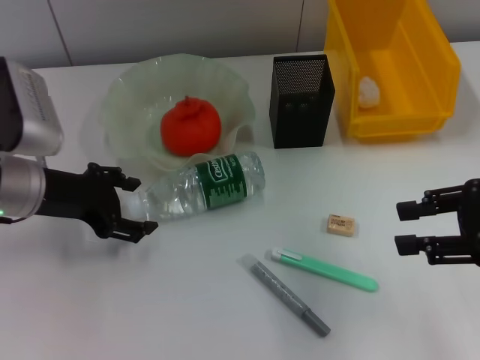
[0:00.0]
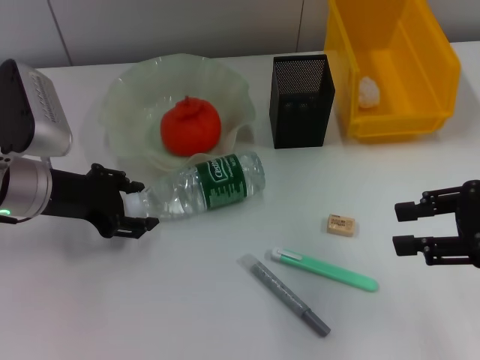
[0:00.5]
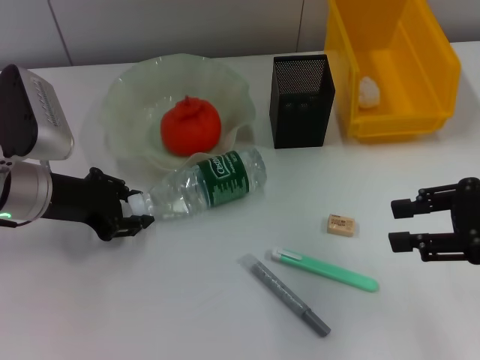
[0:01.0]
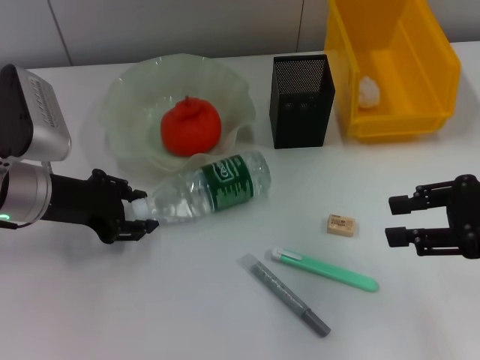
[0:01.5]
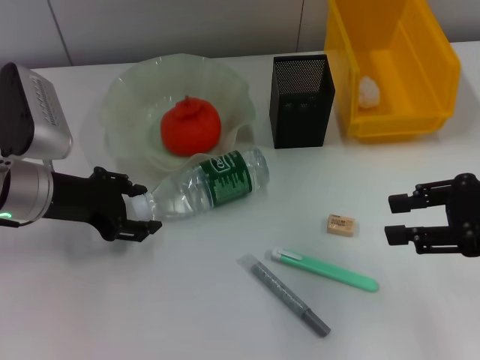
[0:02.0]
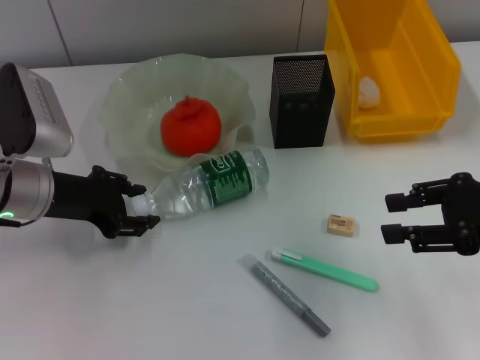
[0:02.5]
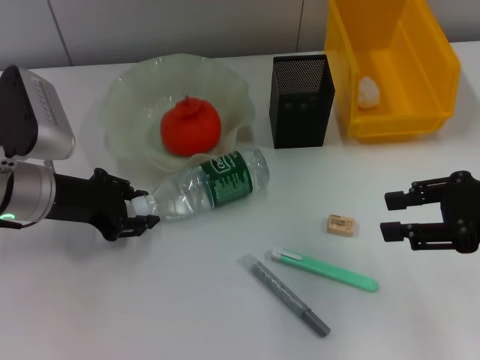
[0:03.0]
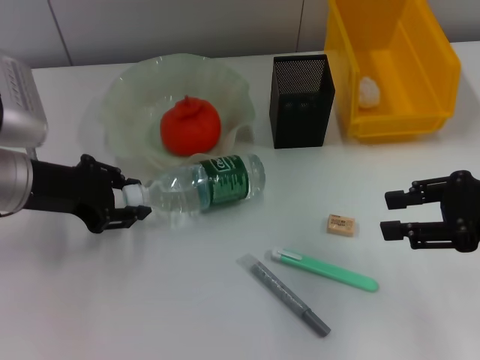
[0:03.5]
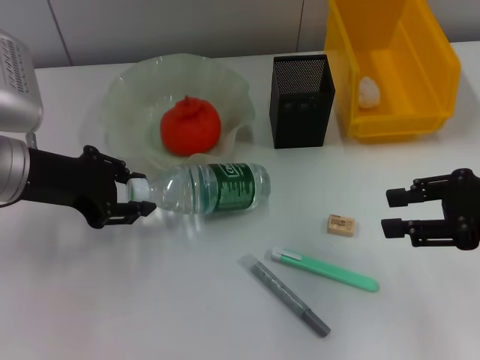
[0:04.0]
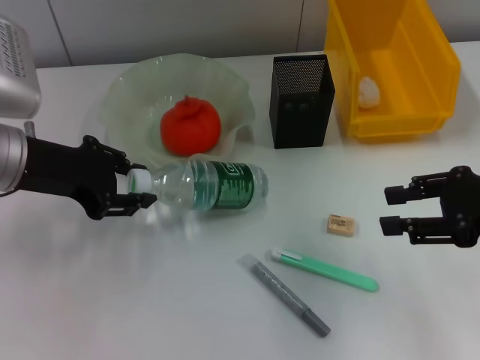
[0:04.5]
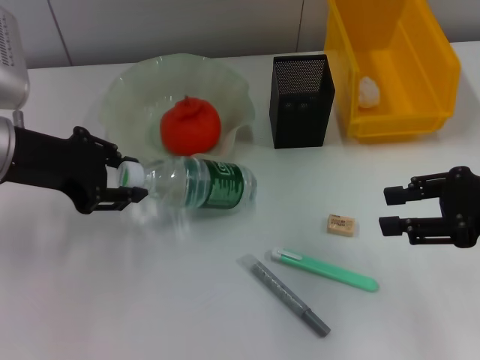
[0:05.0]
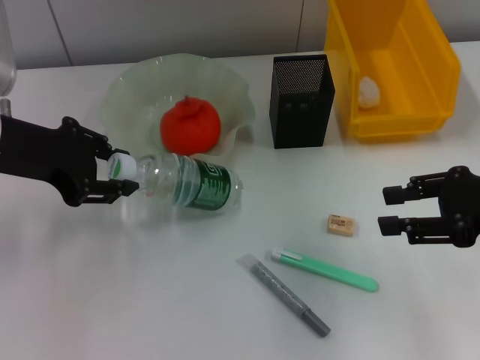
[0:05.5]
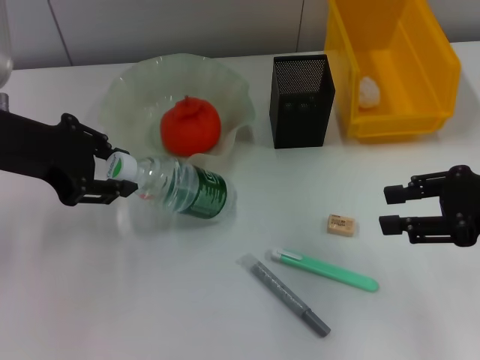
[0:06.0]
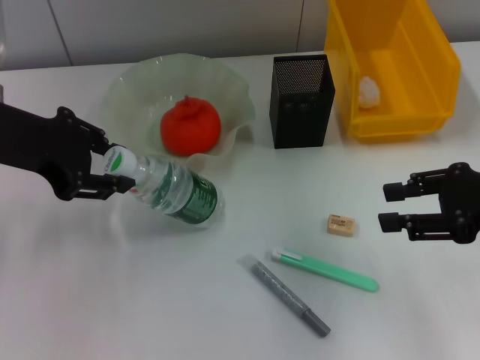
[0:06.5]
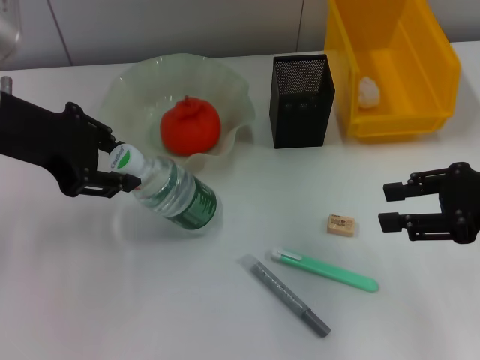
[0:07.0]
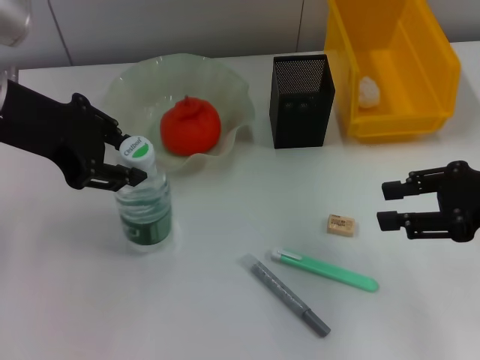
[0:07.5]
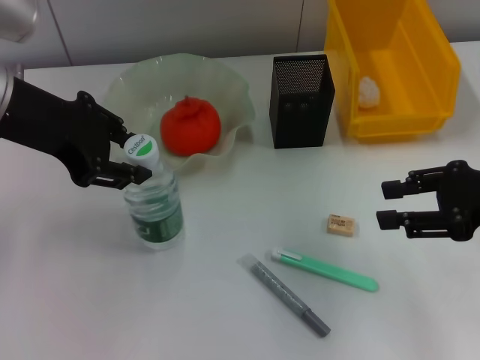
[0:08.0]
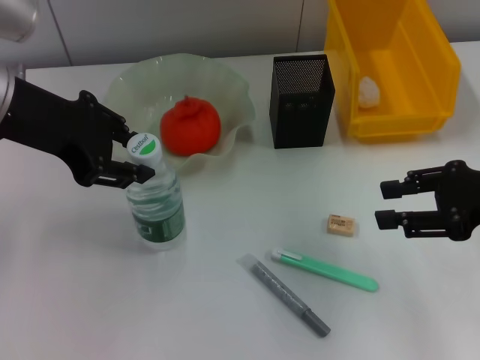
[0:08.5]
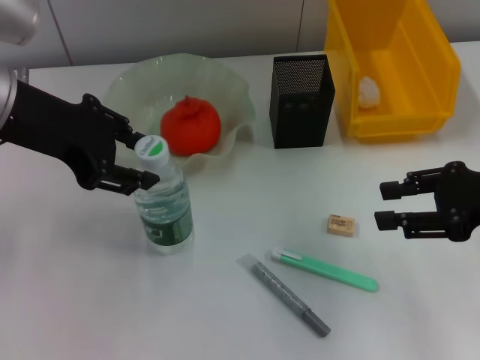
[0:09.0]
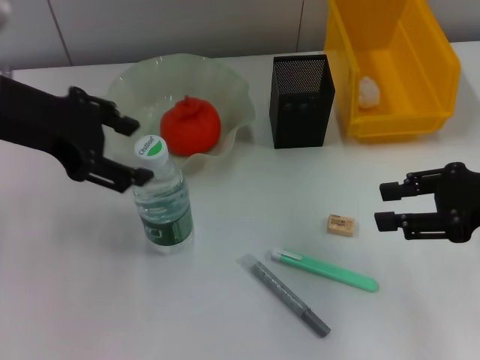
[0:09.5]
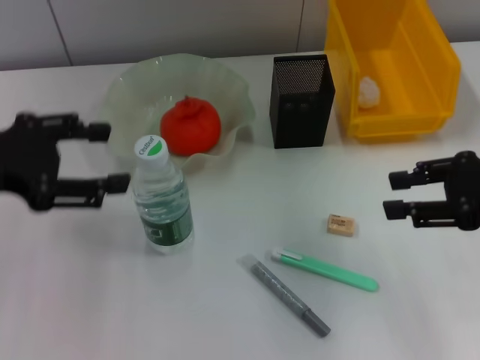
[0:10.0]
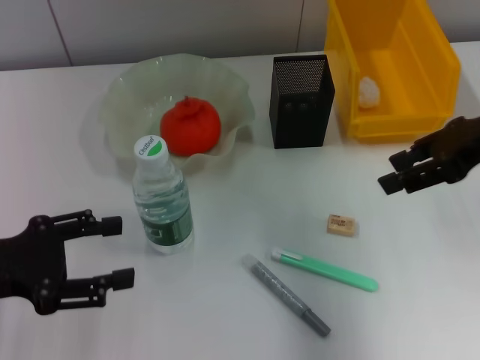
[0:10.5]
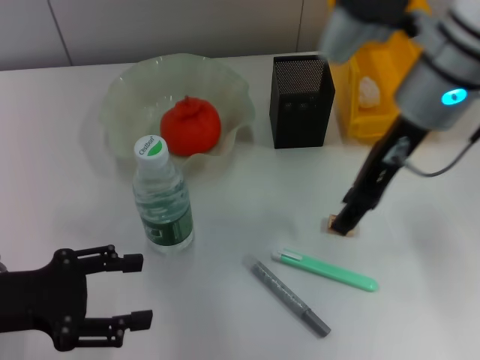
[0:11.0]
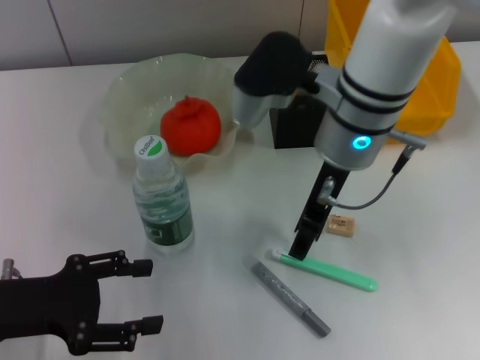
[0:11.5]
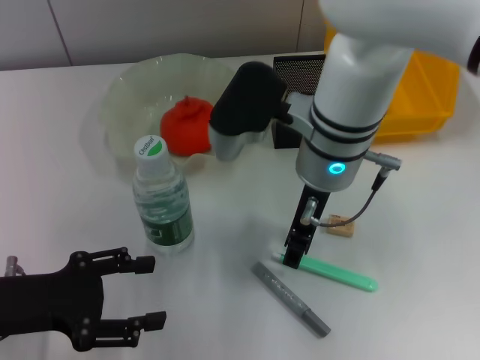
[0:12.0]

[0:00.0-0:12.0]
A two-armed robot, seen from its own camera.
Step, 0:00.0 to 0:03.0: Grab the water bottle with the left hand.
Step, 0:03.5 to 0:09.0: Place the water bottle on the table with the left hand.
0:00.0 to 0:02.0: Neither gripper changes place.
0:02.0 to 0:04.0: The grippers make only small movements.
0:04.0 to 0:06.0: The left gripper shifts roughly 5 cm upward.
0:06.0 to 0:08.0: The grippers move only a little.
0:08.0 to 0:10.0: The left gripper heads to the left and downward, covering roughly 10 cm, and opens.
0:10.0 to 0:12.0: The left gripper goes roughly 10 cm downward and backward. Meanwhile the right gripper heads to the left, covering some 25 cm.

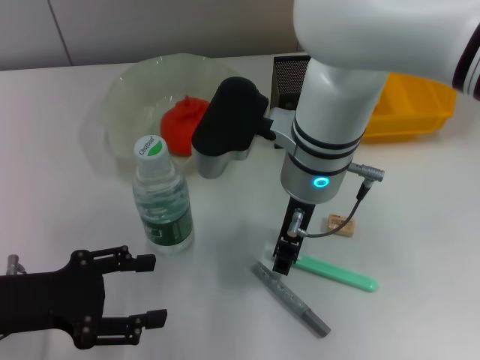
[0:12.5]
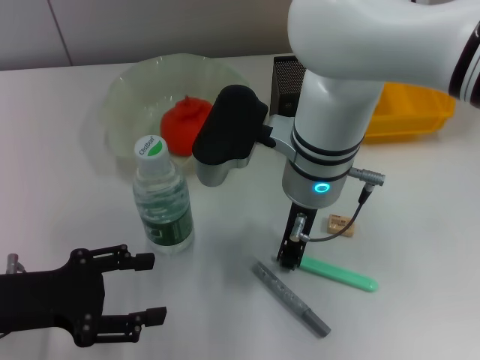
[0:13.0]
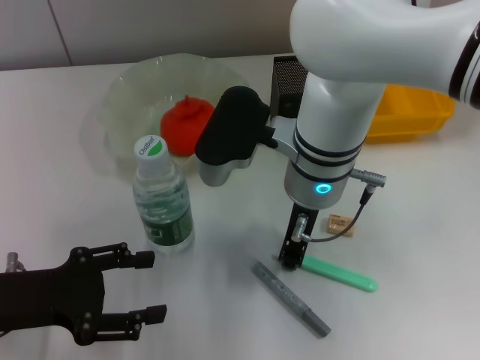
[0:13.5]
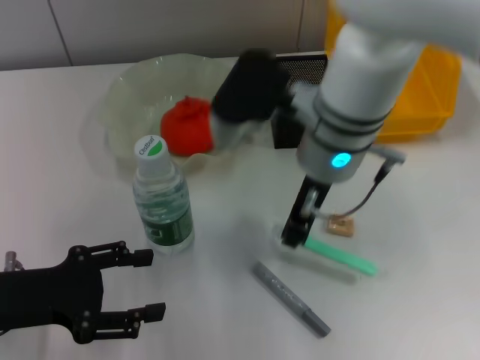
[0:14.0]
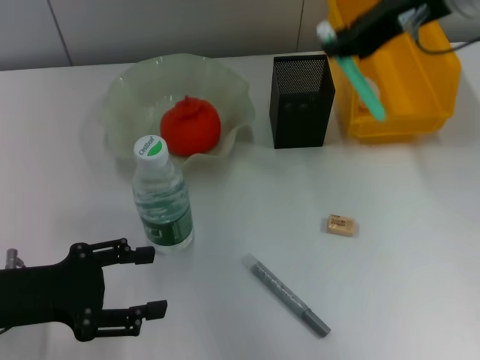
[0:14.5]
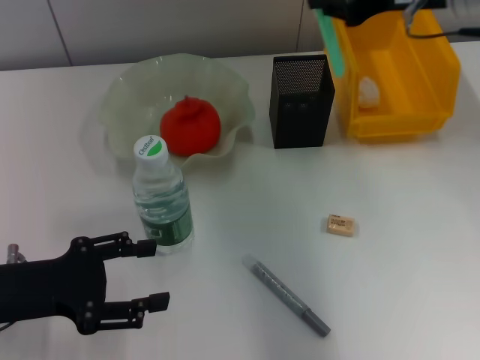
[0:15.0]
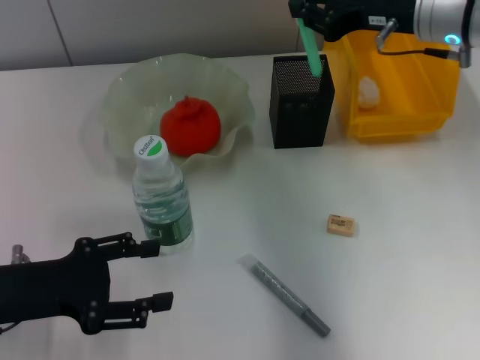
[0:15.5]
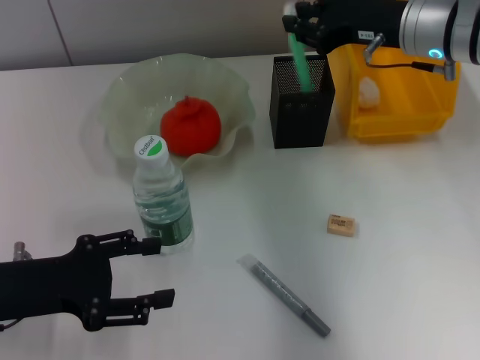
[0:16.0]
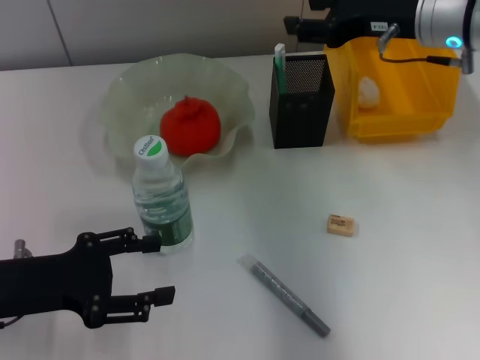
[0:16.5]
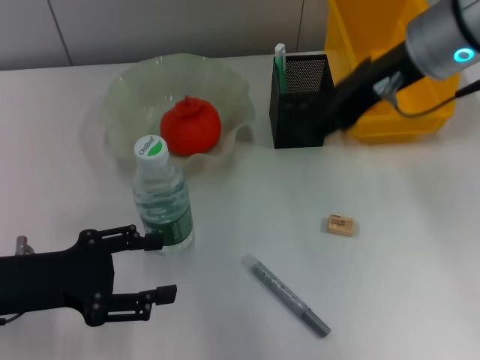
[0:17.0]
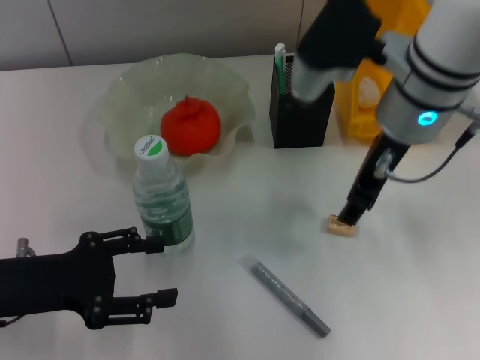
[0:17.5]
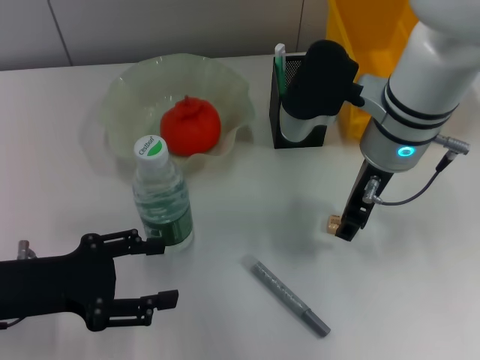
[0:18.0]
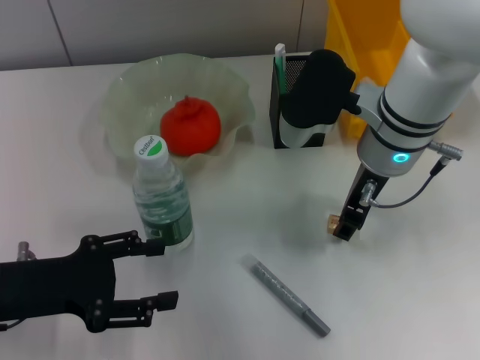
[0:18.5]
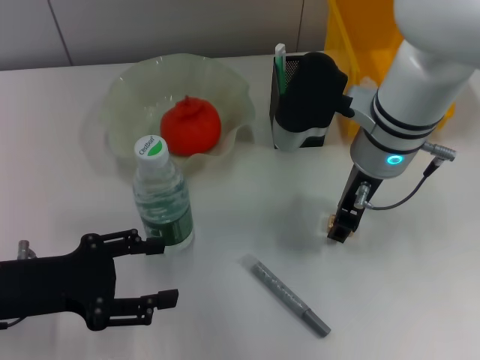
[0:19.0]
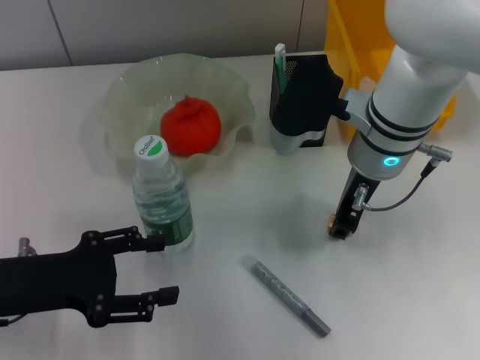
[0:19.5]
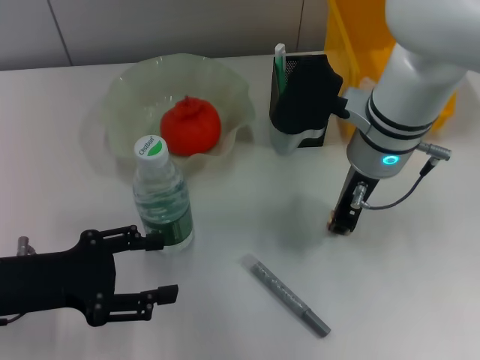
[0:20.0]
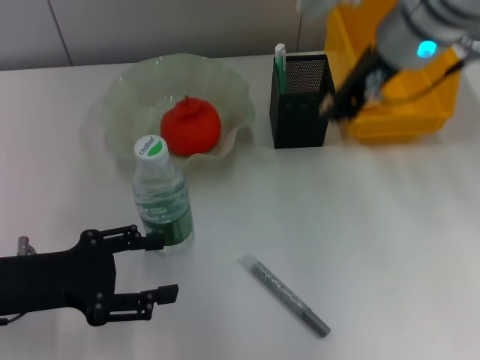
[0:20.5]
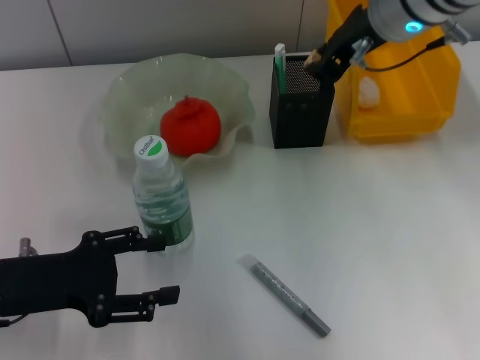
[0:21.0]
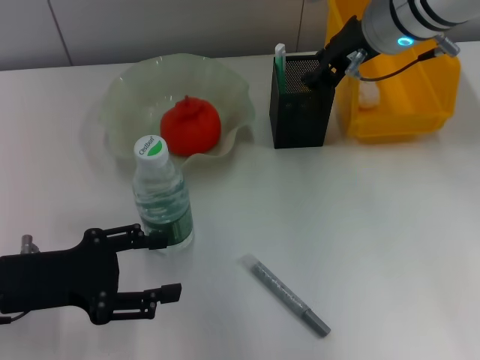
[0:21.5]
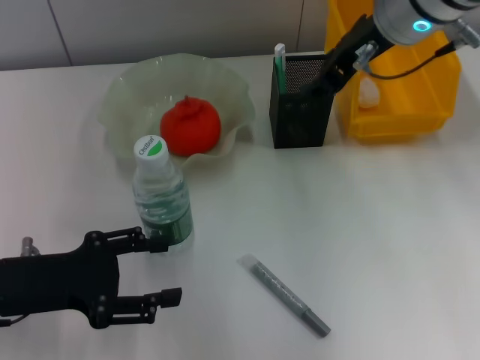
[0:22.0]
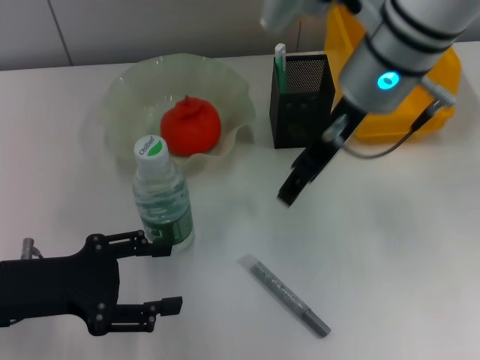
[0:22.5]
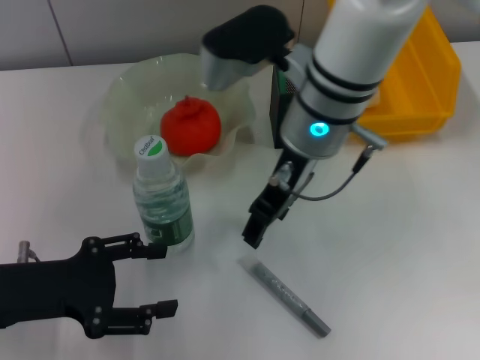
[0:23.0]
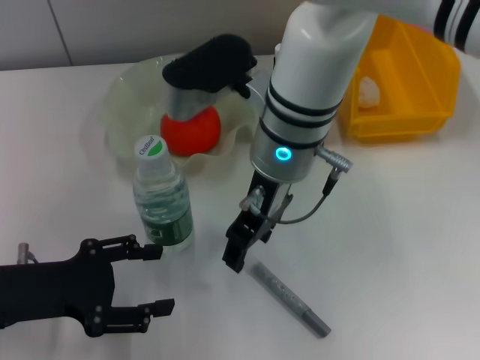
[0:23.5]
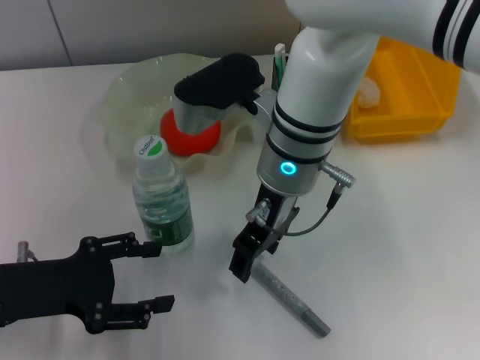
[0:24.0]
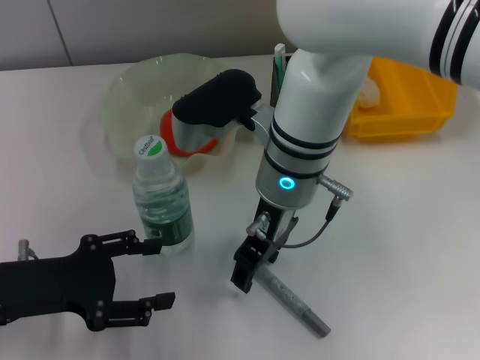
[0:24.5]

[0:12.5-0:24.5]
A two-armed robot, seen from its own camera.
Step, 0:14.0 to 0:16.0: Place the blue utility knife into the pen holder with the right hand.
Step, 0:16.5 to 0:19.5: Grab the eraser with the right hand.
Step, 0:20.0 to 0:21.5: Put the eraser into the pen holder with the right hand.
0:12.5 to 0:14.5: The right gripper travels to the right and upward by roughly 20 cm, and closes its fingers.
0:14.5 to 0:16.5: The right gripper heads downward, covering about 10 cm, and opens up.
0:16.5 to 0:18.5: The right gripper is displaced to the left and downward by approximately 10 cm.
0:18.5 to 0:20.5: The right gripper heads upward, covering approximately 10 cm, and closes up.
0:20.5 to 0:22.5: The right gripper opens.
0:22.5 to 0:24.5: The right gripper travels downward and to the left by some 10 cm.

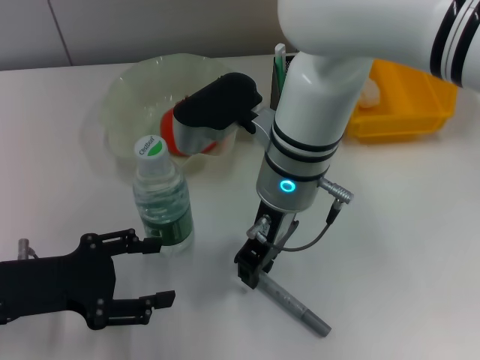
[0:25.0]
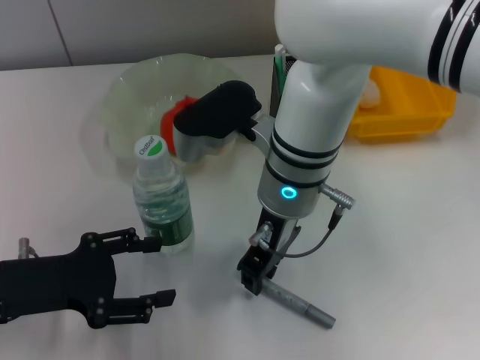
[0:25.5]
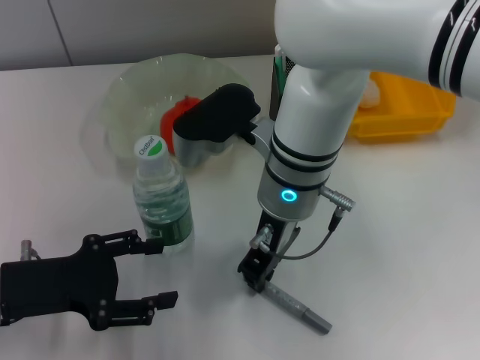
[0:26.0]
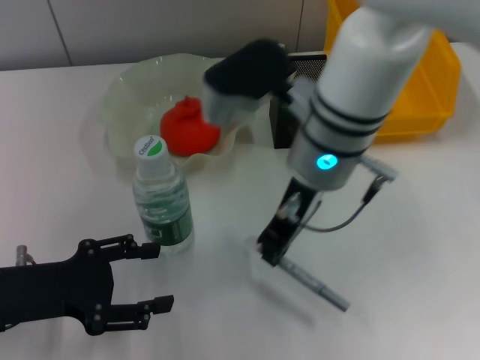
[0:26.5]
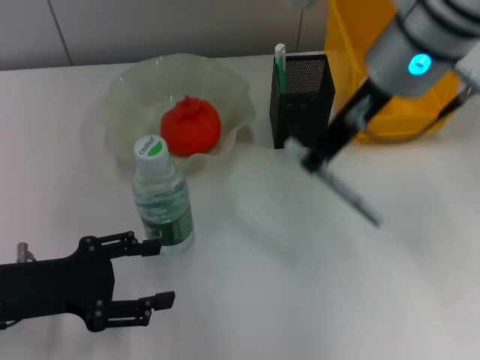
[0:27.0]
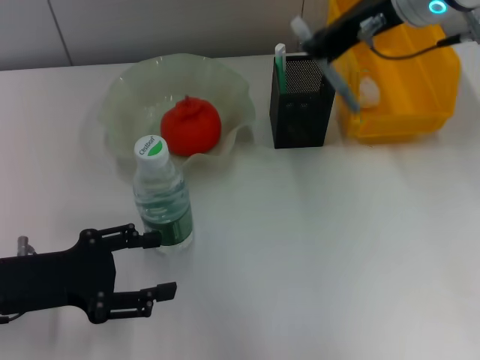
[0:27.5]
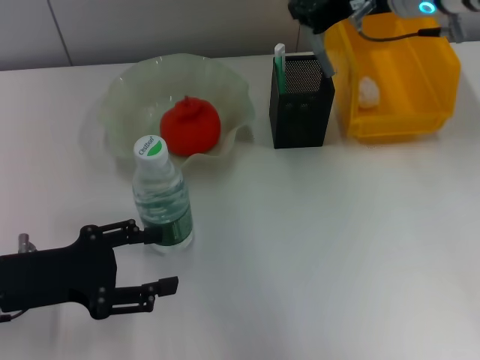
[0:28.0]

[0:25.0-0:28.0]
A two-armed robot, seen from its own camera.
0:25.0 to 0:26.5: The right gripper closes up.
0:26.5 to 0:28.0: The right gripper is displaced to the right, upward and forward by some 15 cm.
